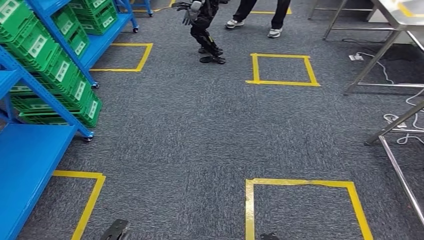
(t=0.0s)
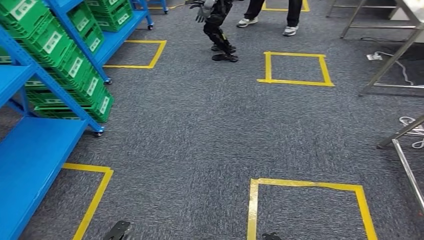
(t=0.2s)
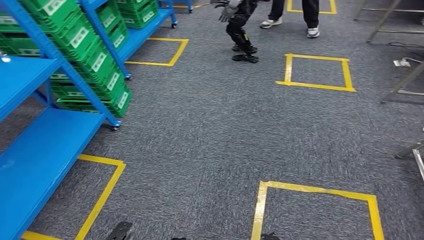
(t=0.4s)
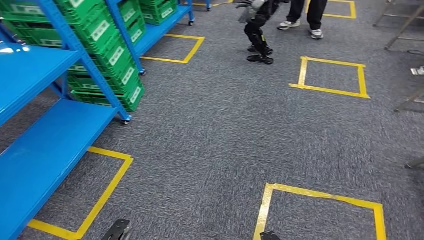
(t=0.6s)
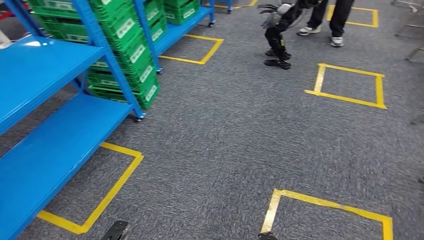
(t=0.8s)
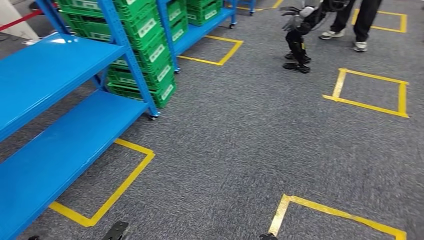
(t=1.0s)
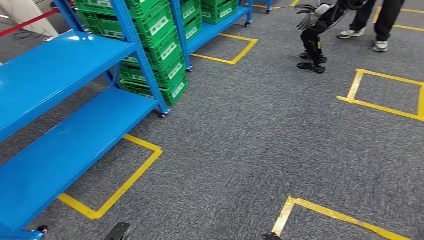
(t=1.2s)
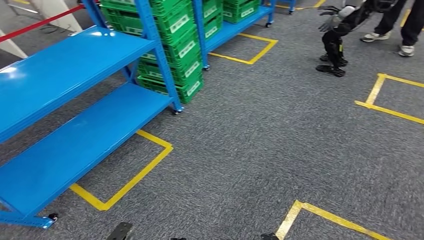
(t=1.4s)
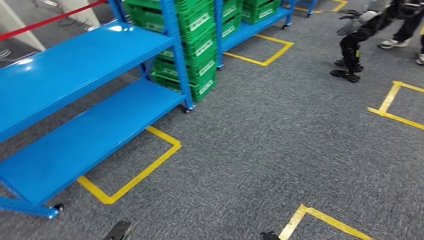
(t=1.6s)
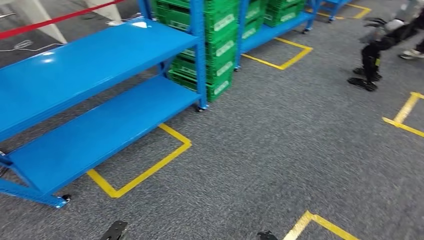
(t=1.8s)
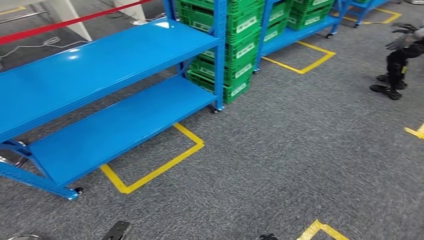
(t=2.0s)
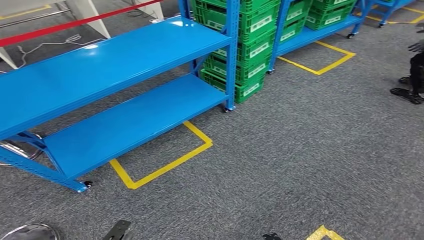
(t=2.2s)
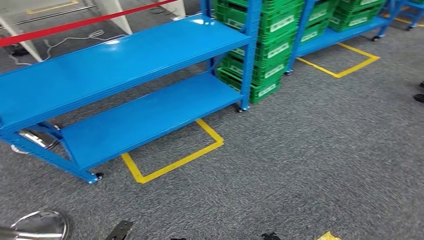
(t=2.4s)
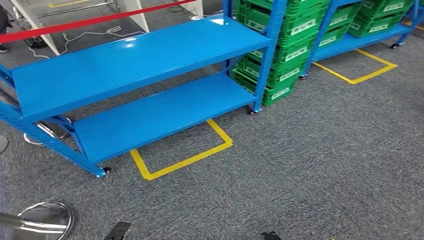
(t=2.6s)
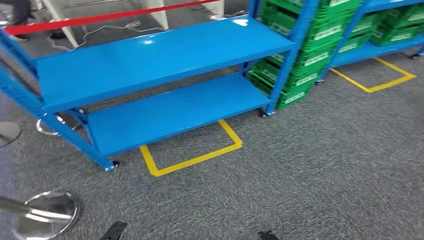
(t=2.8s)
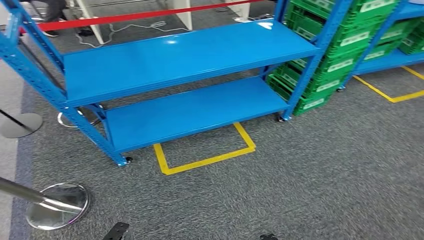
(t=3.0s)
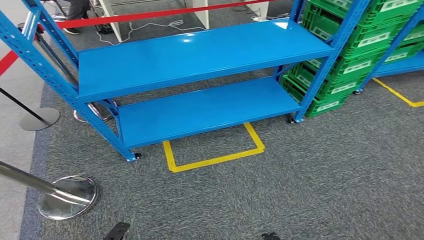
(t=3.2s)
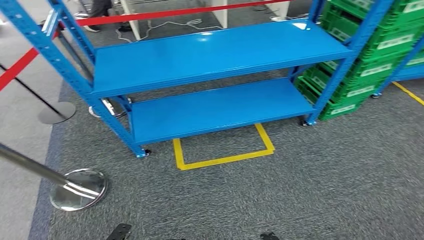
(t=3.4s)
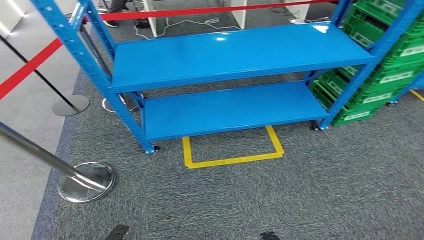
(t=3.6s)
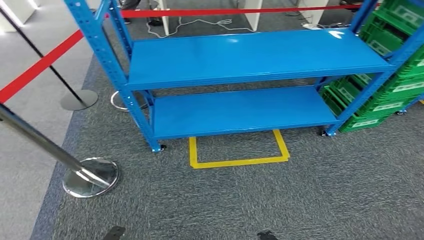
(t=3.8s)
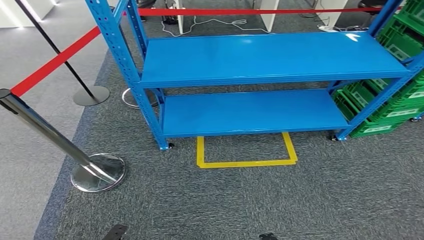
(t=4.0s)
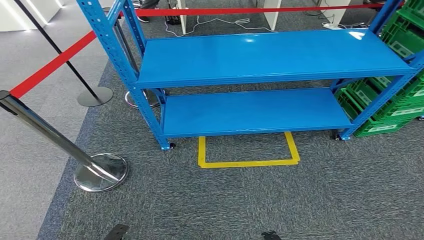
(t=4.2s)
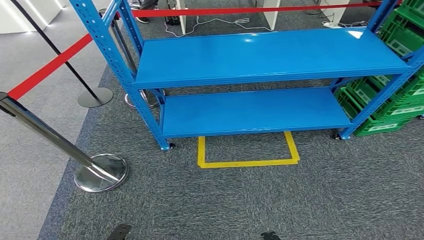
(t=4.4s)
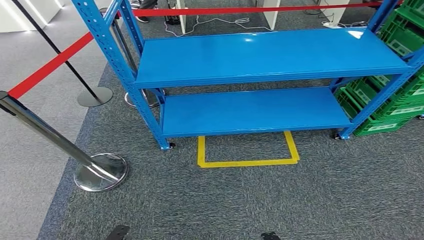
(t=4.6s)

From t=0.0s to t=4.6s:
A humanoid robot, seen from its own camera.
Step, from t=0.0s to t=4.6s: Return to the initial position at the workbench.

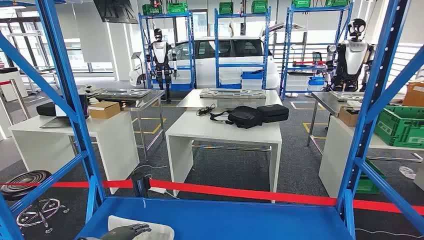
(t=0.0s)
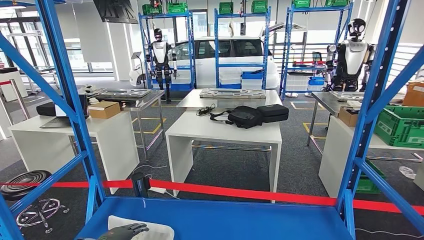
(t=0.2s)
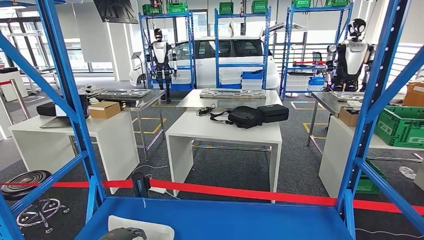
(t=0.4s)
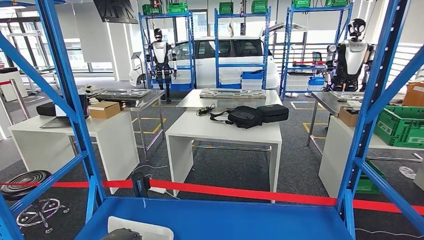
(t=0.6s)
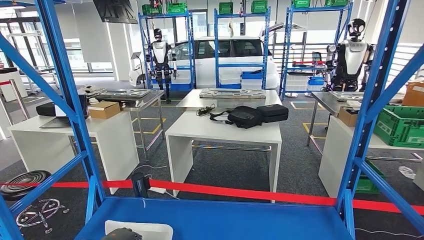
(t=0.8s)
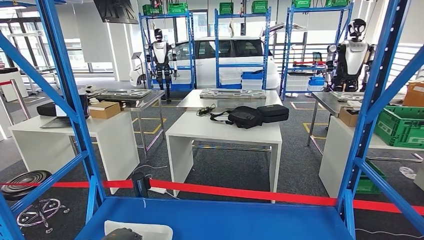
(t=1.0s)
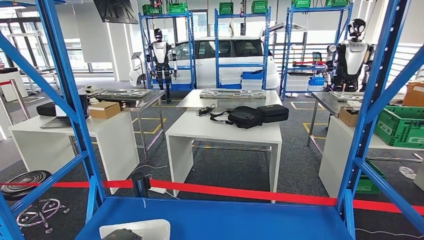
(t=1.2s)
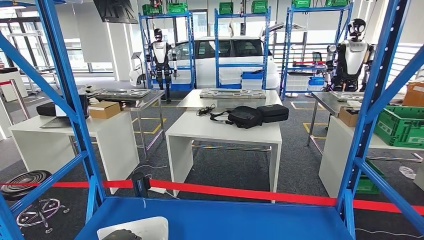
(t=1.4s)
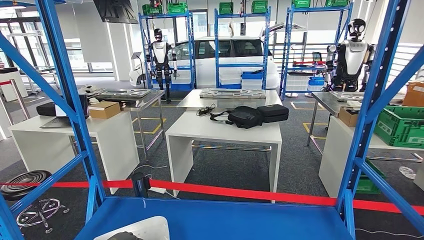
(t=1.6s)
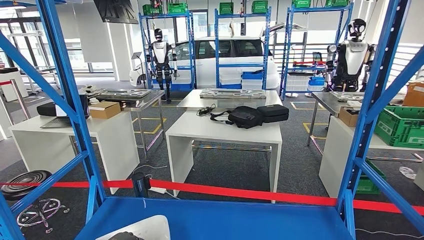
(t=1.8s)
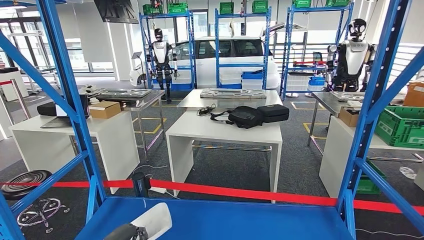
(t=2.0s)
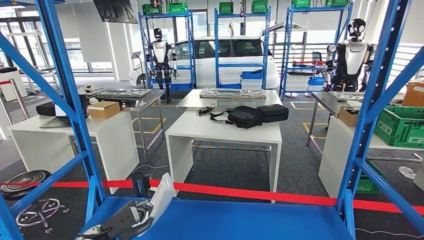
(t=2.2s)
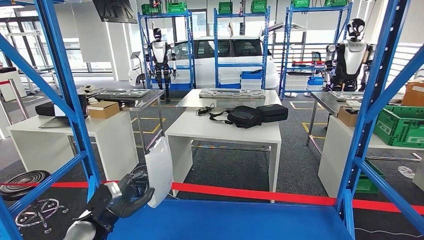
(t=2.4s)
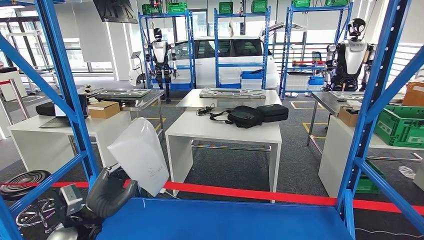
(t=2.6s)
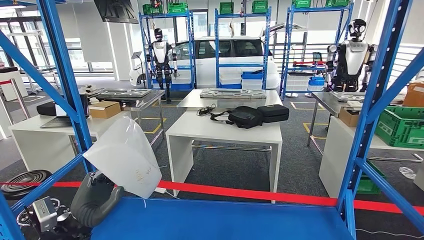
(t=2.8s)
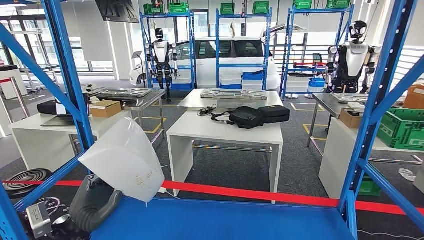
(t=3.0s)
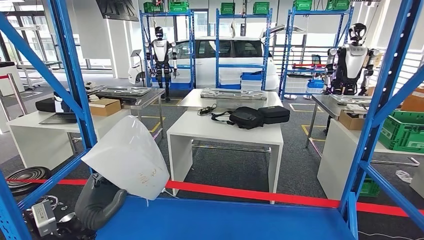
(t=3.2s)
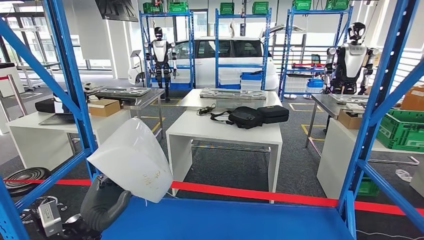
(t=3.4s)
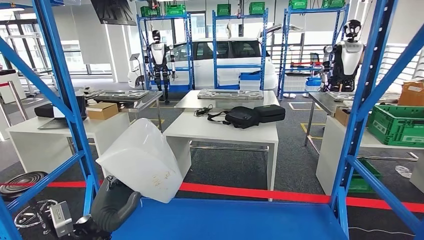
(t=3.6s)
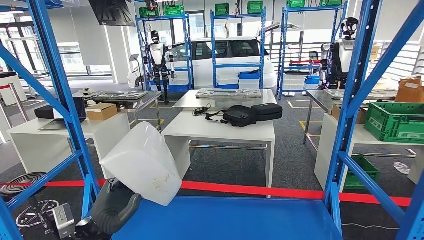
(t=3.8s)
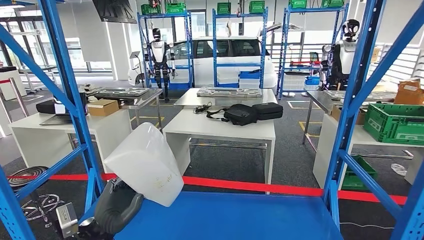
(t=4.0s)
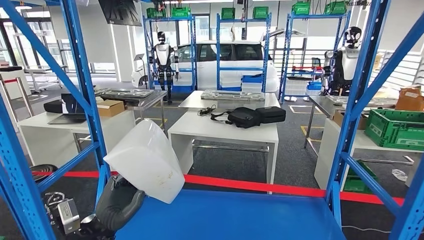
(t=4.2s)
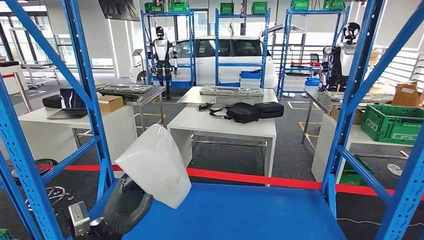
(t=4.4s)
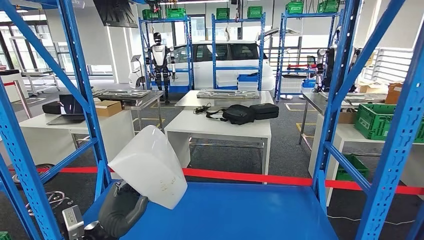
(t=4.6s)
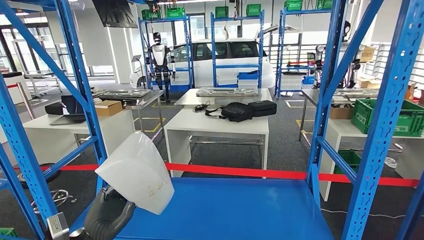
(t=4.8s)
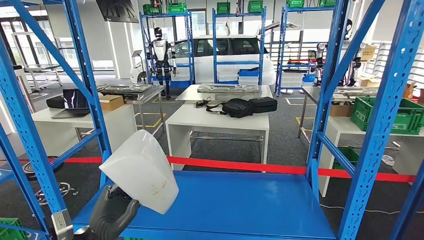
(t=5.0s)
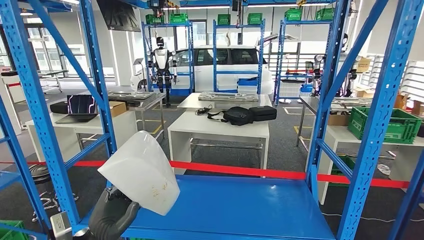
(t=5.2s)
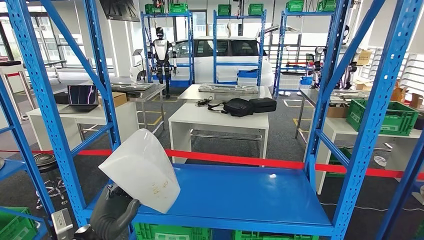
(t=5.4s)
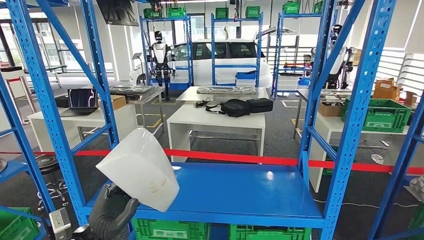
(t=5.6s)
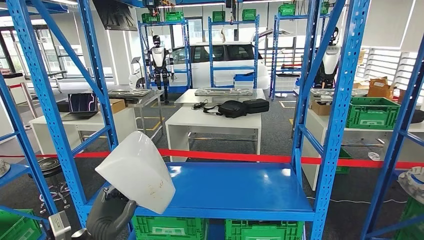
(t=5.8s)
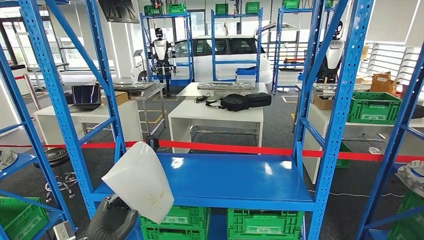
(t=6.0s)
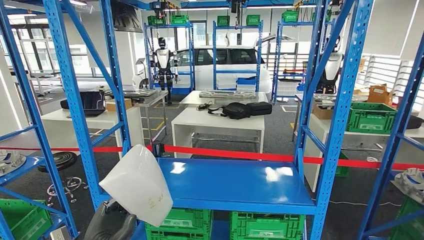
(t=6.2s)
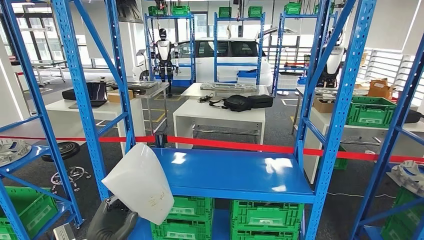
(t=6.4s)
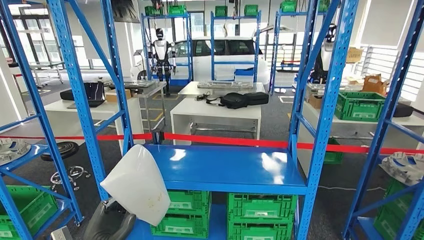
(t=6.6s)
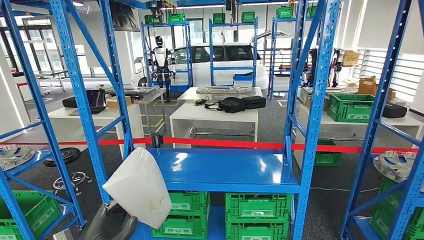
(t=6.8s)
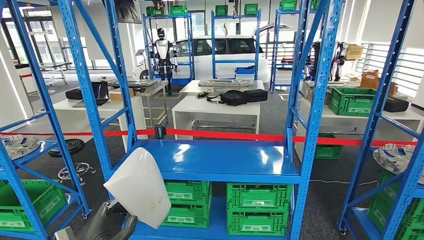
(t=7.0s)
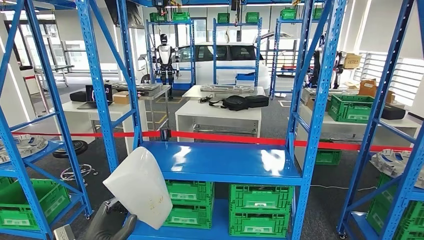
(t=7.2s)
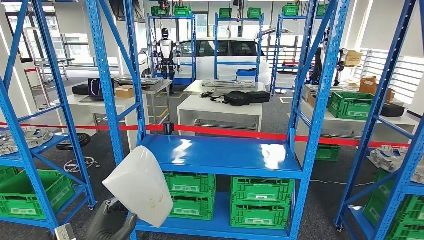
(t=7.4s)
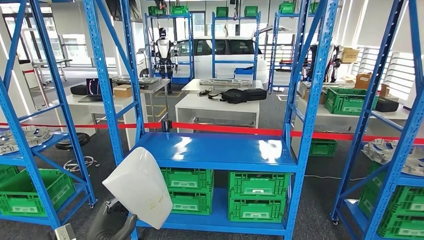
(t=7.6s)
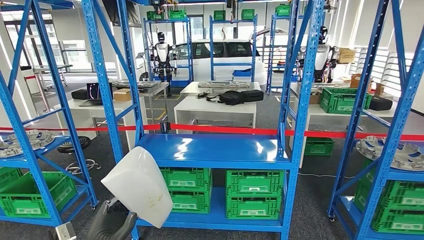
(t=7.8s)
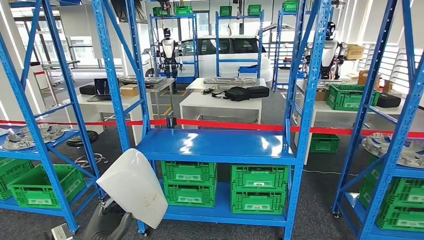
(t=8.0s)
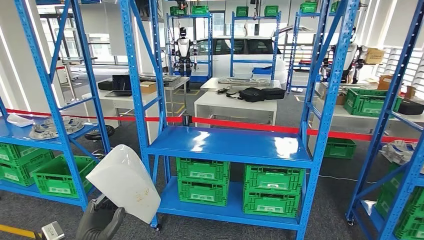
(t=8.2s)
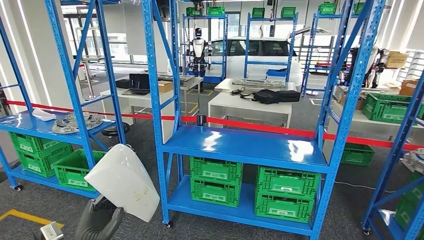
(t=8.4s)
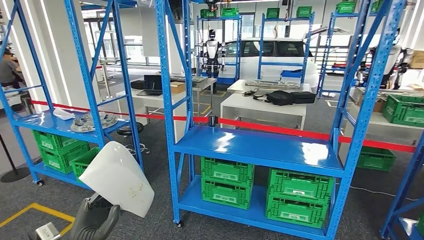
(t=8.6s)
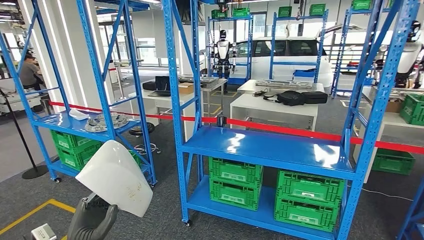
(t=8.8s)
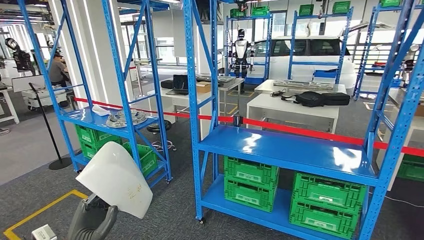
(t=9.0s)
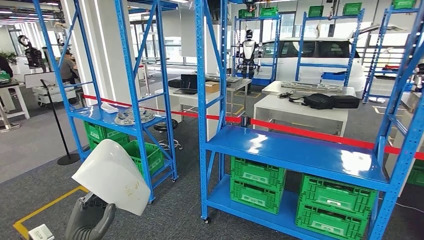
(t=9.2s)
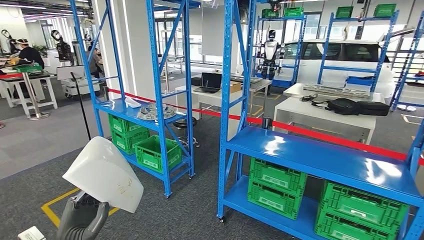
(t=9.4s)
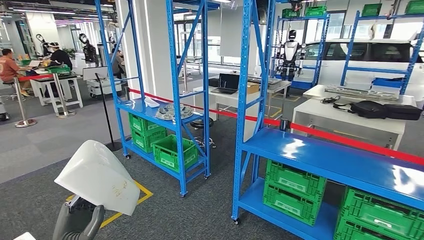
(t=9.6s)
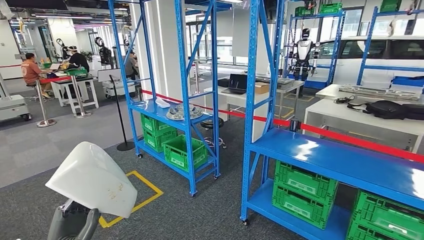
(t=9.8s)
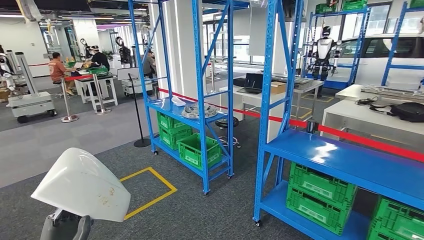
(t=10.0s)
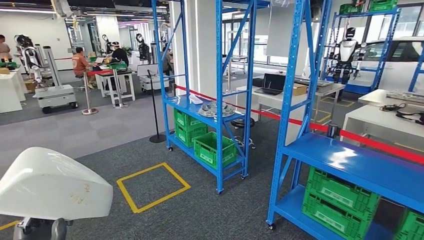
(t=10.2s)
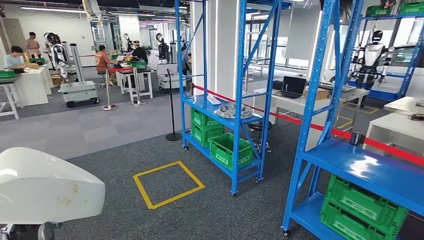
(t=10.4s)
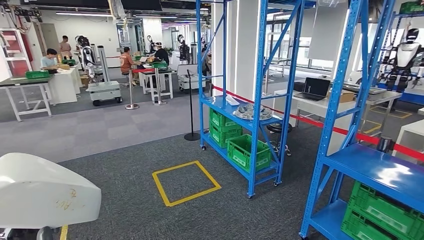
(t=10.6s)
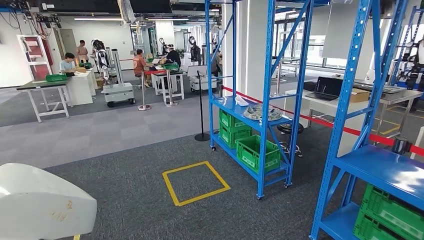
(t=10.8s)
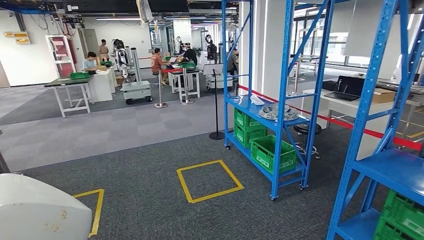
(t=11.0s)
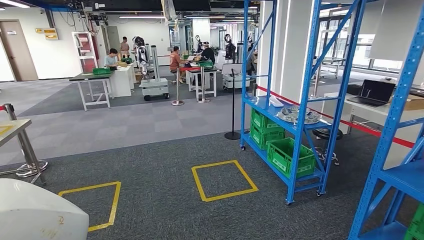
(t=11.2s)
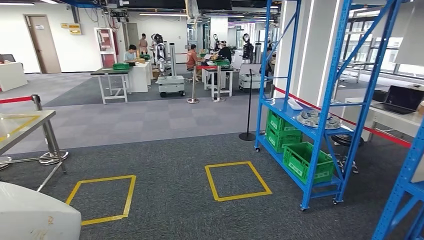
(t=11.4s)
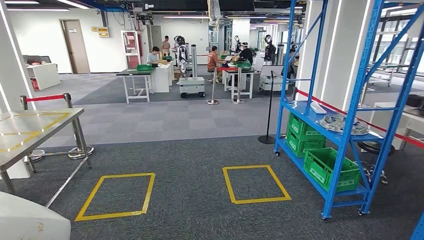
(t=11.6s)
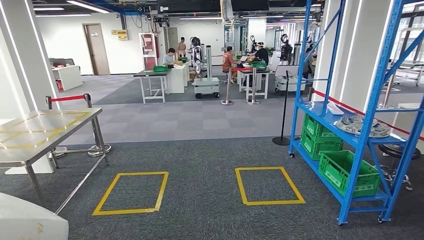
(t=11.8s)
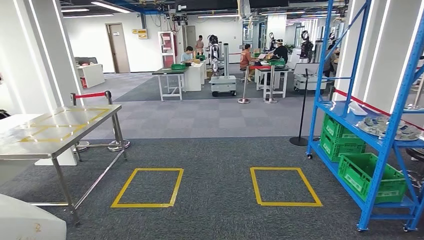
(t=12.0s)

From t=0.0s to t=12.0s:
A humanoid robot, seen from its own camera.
Step, from t=0.0s to t=3.8s: Pick up the small component from the shelf.
